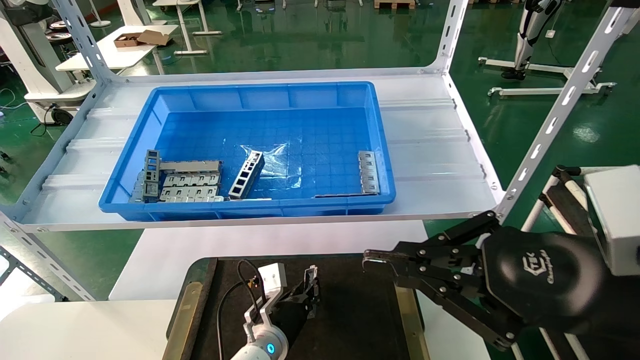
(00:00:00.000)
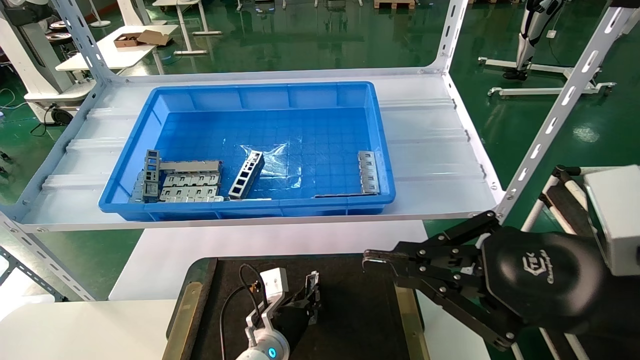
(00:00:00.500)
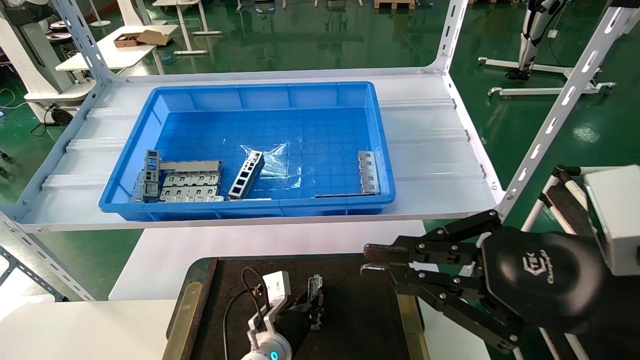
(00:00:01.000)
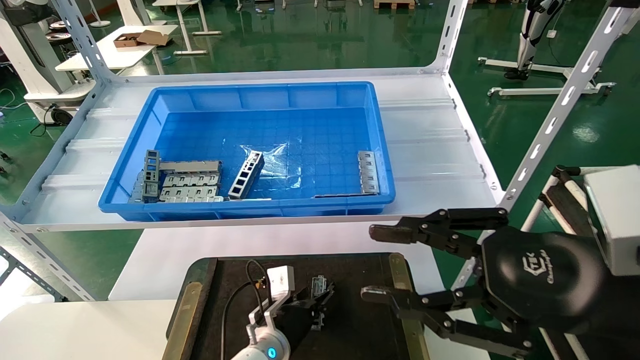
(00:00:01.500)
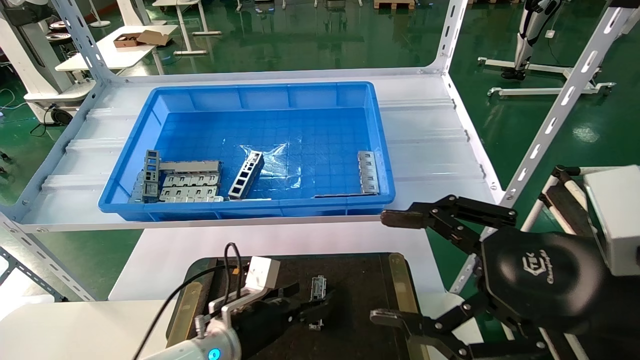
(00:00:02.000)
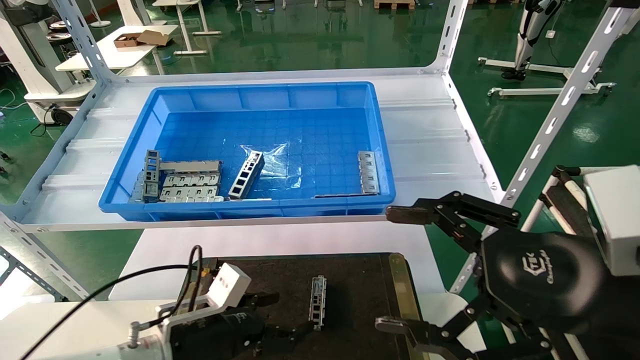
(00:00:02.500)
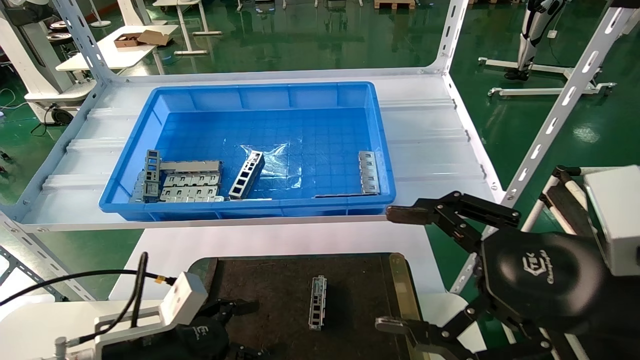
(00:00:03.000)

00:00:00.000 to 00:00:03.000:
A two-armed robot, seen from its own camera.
Task of the whole recording: Grasp the part with one hand and place it on the black container.
00:00:00.000 to 00:00:01.500: The left gripper opens up.
00:00:01.500 to 00:00:03.000: The right gripper opens; the left gripper is displaced to the left, backward and upward by roughly 25 cm, and opens up.
